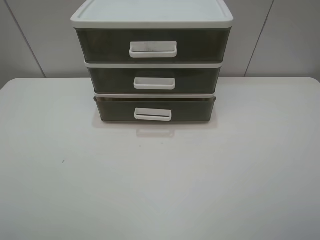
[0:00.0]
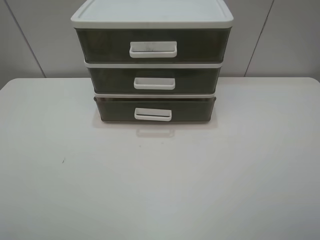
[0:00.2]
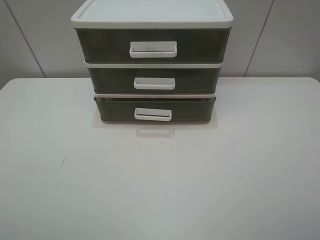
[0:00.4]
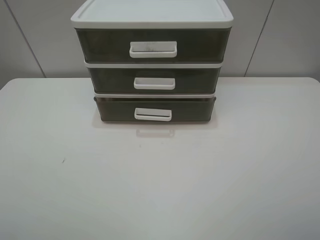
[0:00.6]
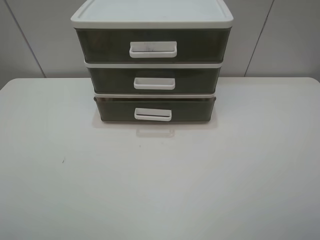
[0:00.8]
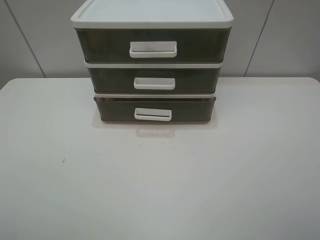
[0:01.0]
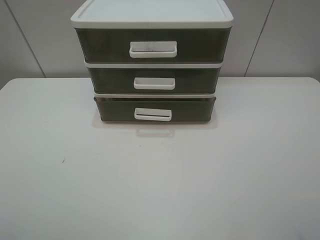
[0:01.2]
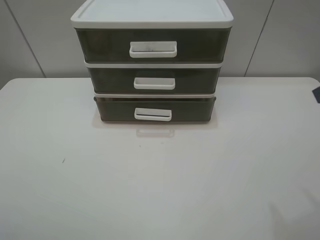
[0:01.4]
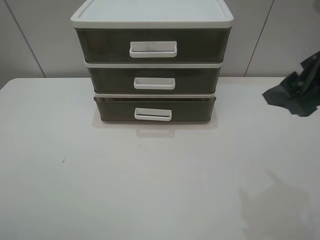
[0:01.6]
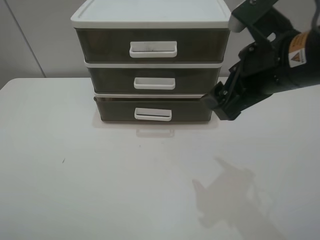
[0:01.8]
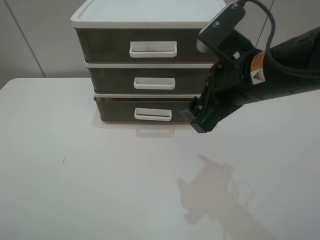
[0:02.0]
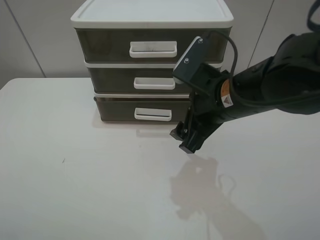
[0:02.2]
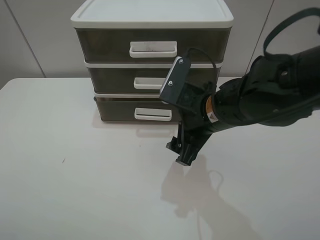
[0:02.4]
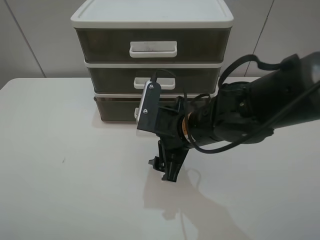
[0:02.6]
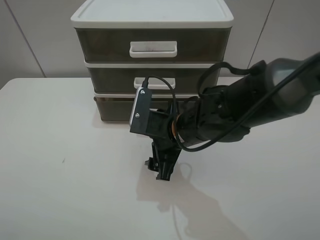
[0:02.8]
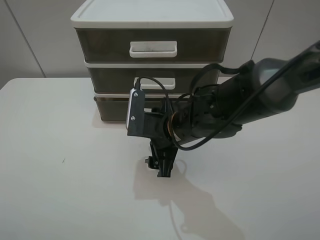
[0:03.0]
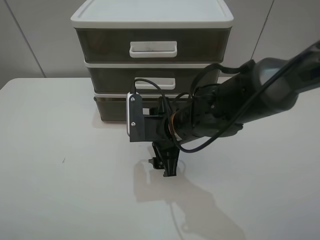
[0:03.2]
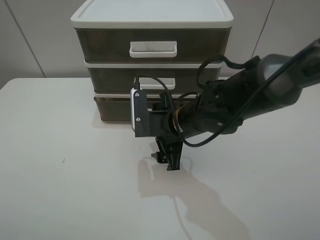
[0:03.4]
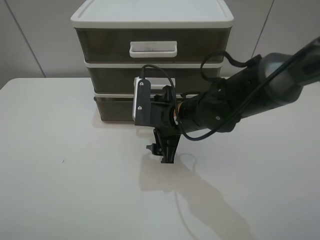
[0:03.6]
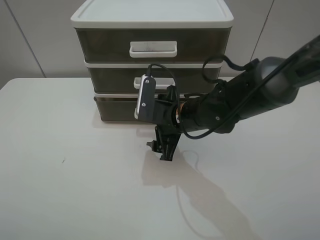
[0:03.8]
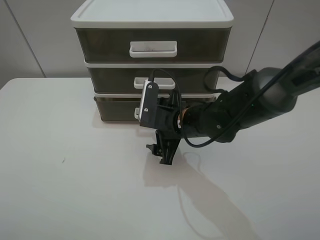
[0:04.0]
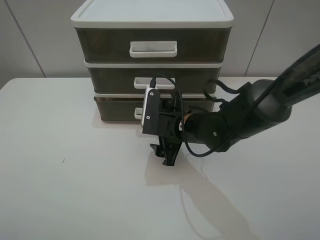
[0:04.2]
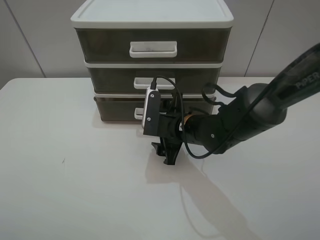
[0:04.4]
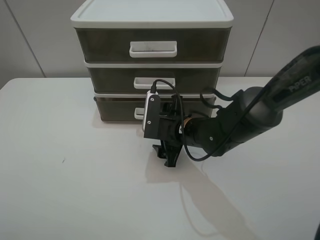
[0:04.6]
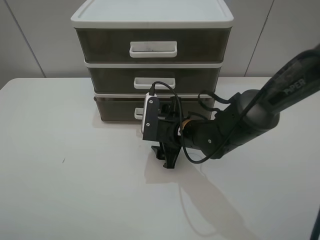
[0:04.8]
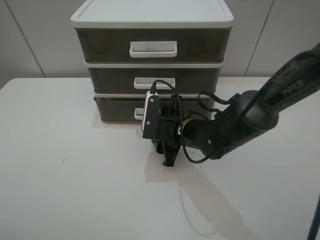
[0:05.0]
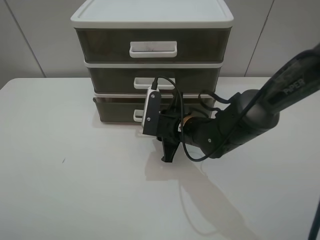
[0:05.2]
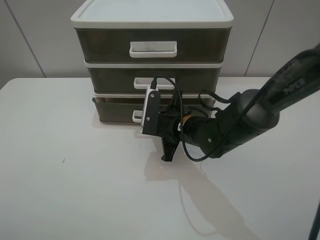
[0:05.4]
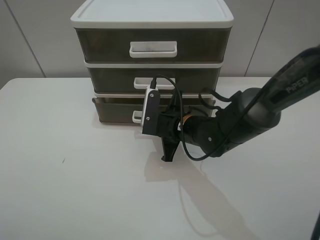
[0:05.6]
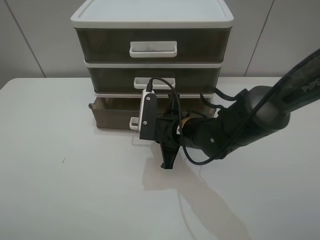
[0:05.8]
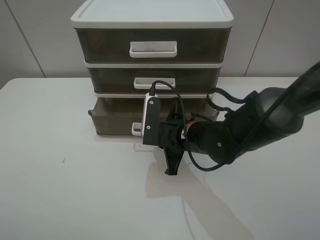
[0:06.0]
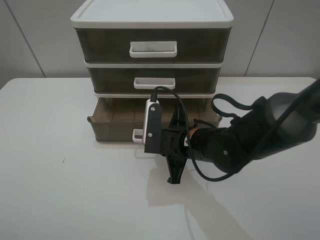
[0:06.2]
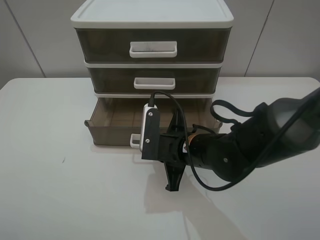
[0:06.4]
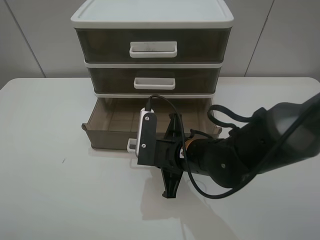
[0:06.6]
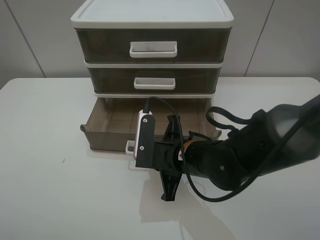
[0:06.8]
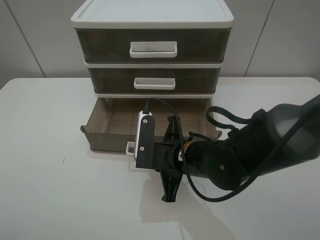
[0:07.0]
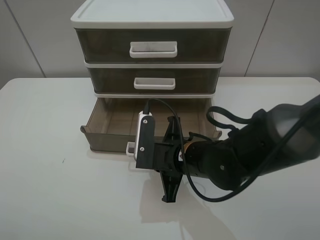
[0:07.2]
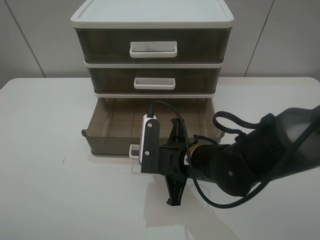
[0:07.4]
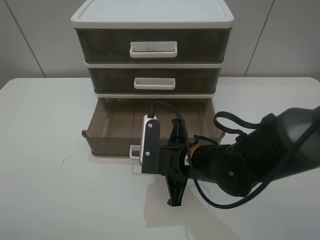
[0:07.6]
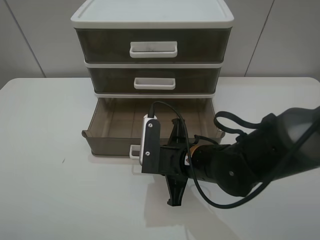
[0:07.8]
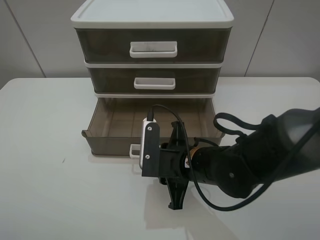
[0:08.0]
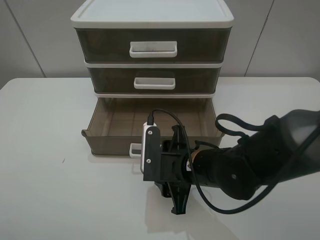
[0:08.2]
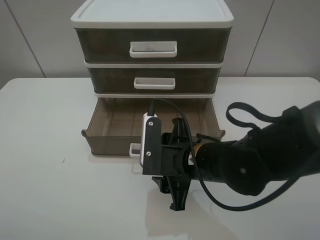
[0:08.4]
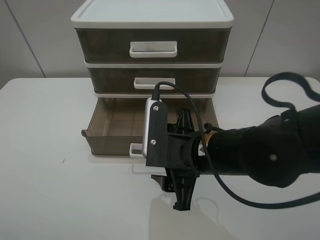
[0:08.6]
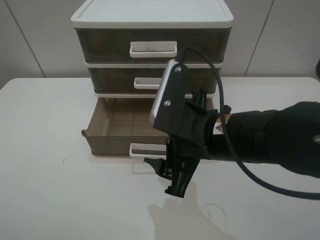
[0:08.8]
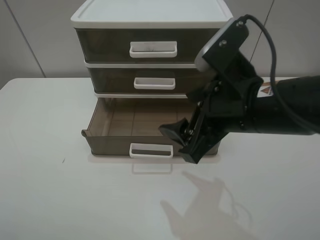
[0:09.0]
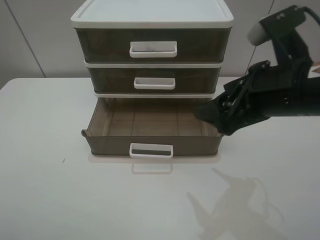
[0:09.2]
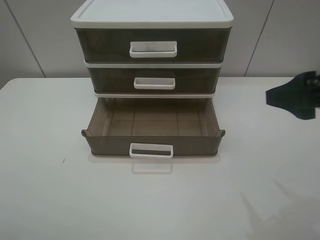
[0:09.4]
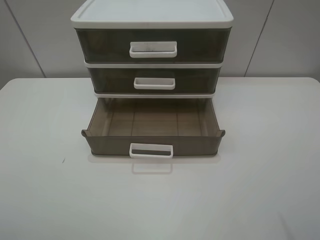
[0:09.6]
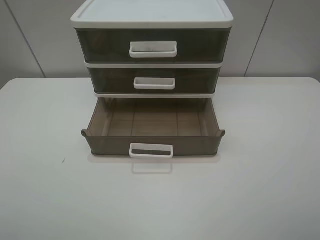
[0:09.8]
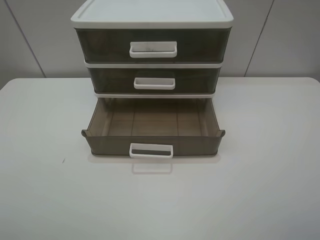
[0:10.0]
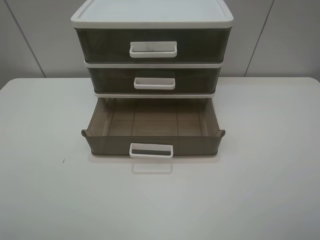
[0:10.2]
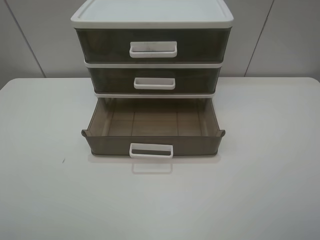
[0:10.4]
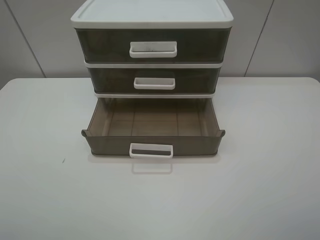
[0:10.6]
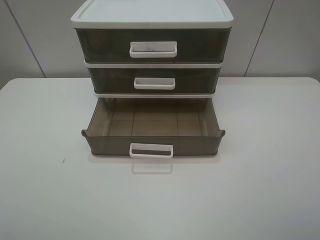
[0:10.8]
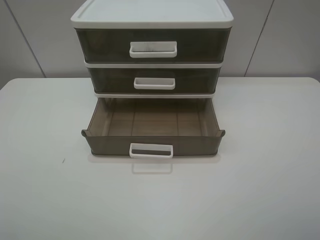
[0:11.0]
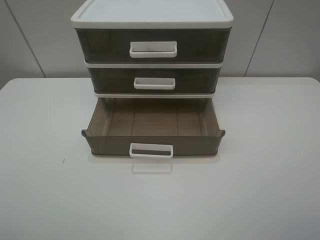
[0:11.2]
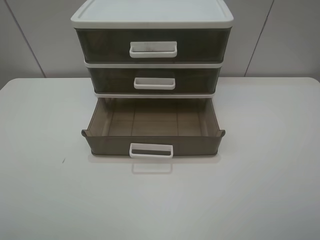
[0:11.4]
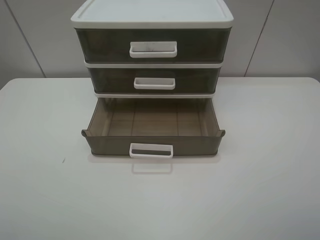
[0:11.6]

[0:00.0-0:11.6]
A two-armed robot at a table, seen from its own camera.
Task of the whole recording: open the bottom drawer.
Step, 0:00.0 to 0:05.4: Grab the bottom drawer with the right gripper.
Step, 0:05.6 to 0:08.4: Pull open the drawer with the right gripper.
0:01.4 to 0:02.8: The right gripper is displaced to the left, downward and forward by about 30 cm.
0:02.8 to 0:04.4: The right gripper changes place by roughly 5 cm.
0:04.4 to 0:05.8: The right gripper closes up.
0:05.8 to 0:07.2: The right gripper heads backward, covering some 5 cm.
0:07.2 to 0:08.8: The right gripper moves upward, approximately 10 cm, and opens.
0:08.8 to 0:10.2: The right gripper travels to the right and backward by about 30 cm.

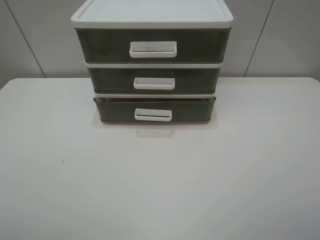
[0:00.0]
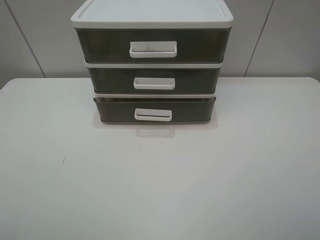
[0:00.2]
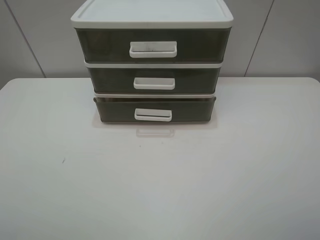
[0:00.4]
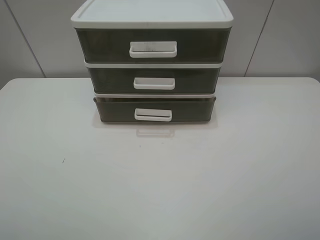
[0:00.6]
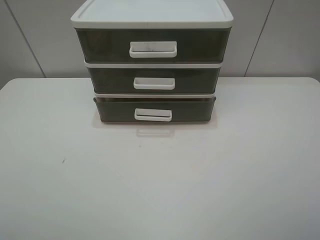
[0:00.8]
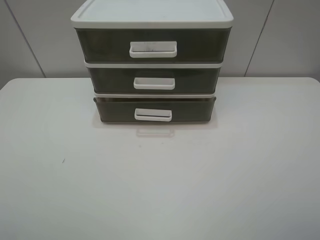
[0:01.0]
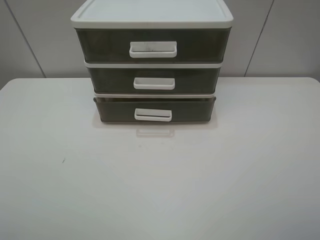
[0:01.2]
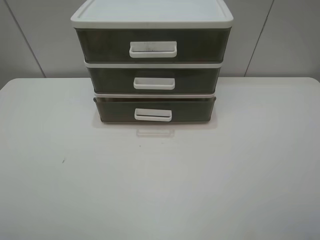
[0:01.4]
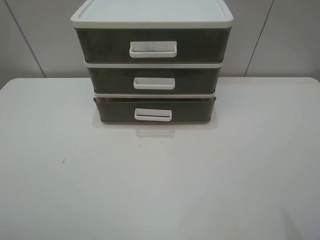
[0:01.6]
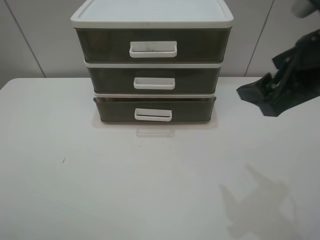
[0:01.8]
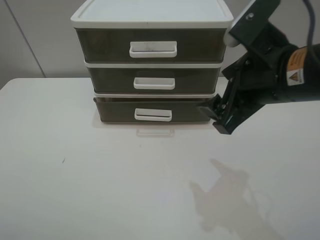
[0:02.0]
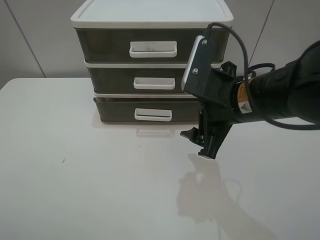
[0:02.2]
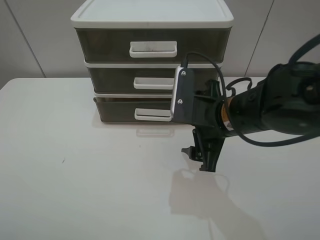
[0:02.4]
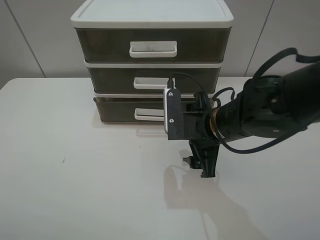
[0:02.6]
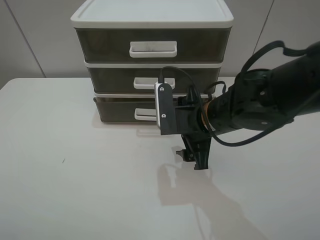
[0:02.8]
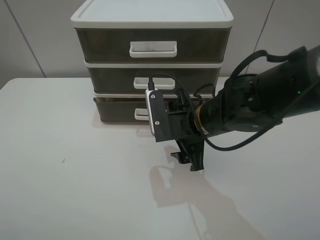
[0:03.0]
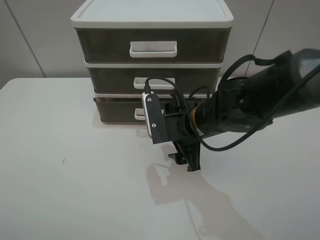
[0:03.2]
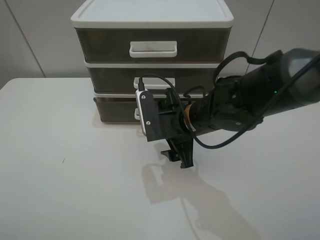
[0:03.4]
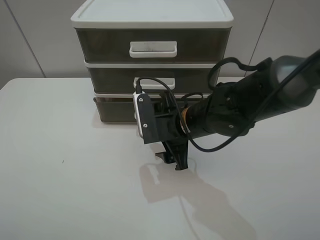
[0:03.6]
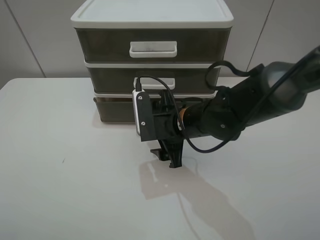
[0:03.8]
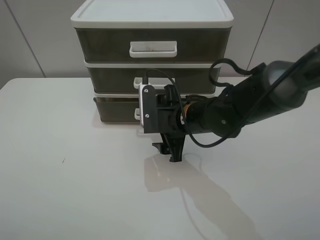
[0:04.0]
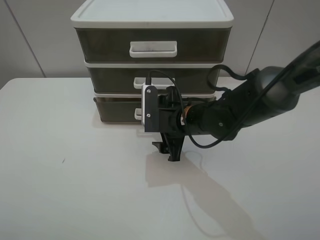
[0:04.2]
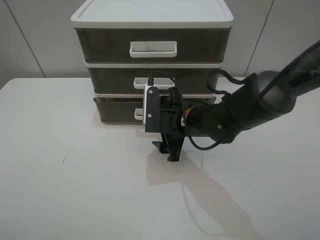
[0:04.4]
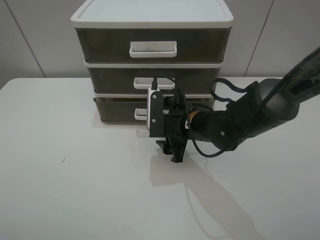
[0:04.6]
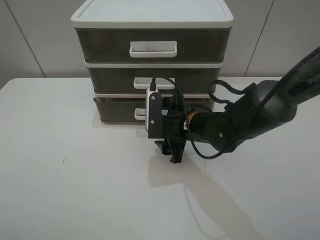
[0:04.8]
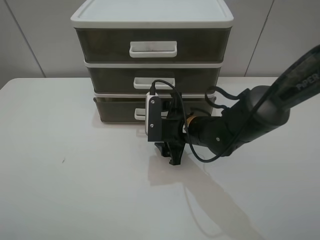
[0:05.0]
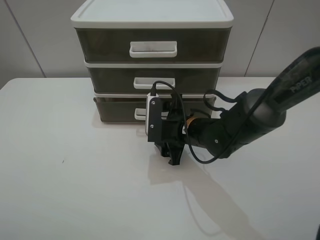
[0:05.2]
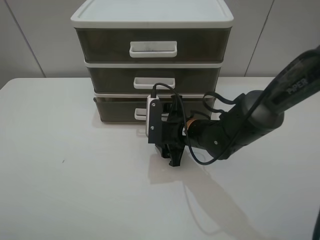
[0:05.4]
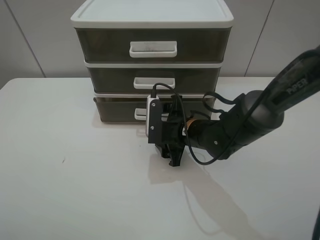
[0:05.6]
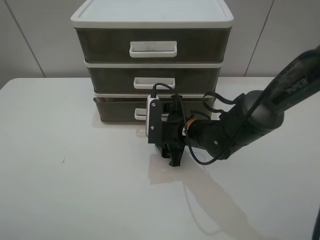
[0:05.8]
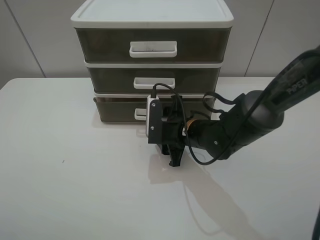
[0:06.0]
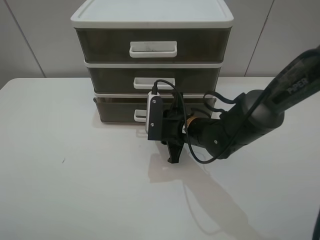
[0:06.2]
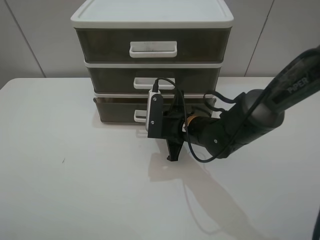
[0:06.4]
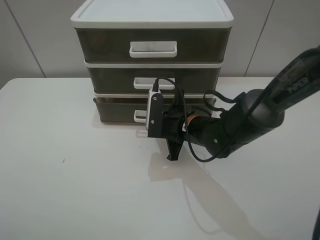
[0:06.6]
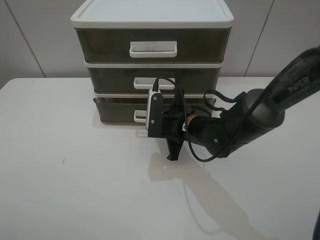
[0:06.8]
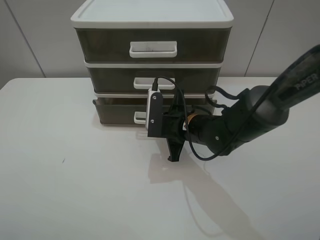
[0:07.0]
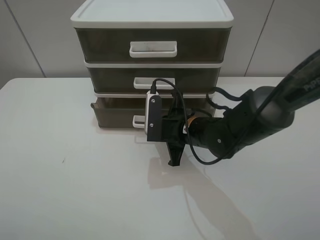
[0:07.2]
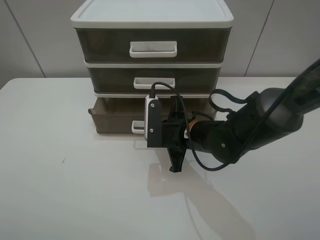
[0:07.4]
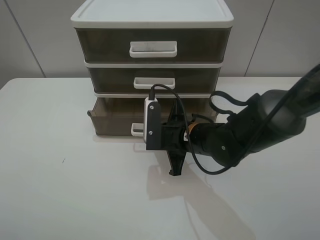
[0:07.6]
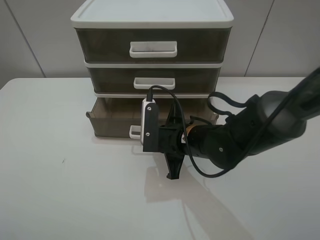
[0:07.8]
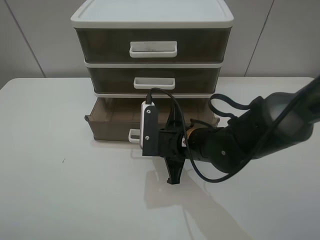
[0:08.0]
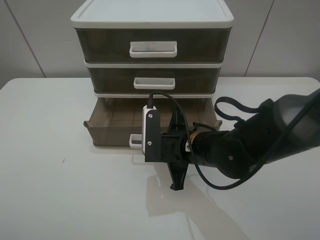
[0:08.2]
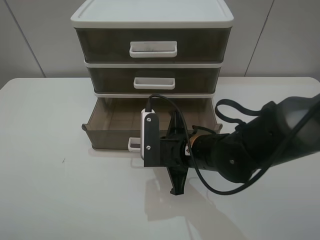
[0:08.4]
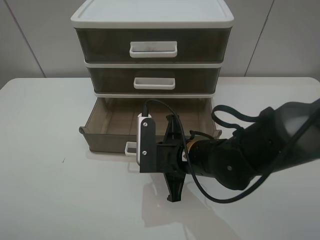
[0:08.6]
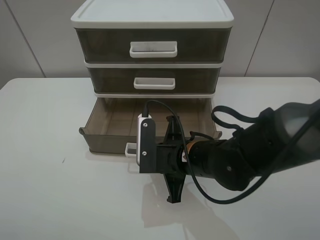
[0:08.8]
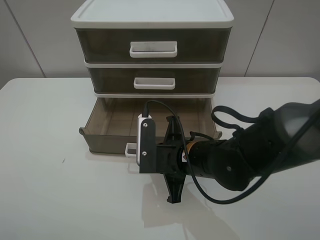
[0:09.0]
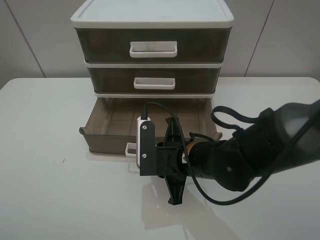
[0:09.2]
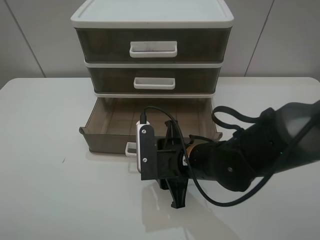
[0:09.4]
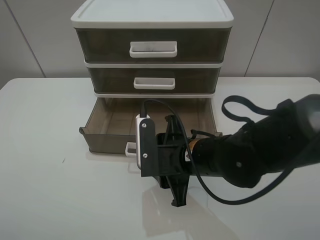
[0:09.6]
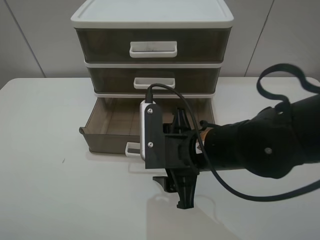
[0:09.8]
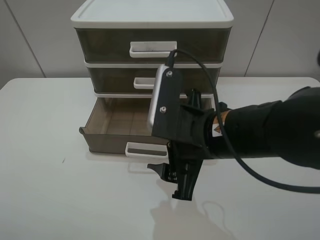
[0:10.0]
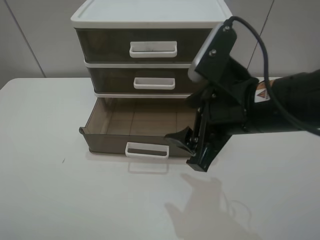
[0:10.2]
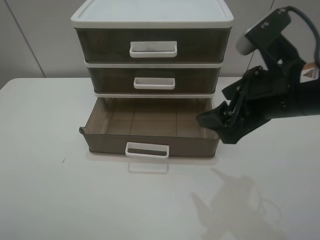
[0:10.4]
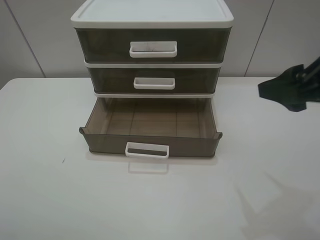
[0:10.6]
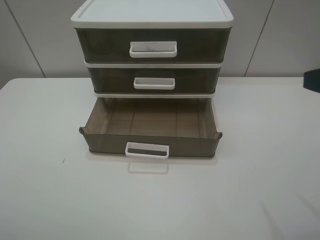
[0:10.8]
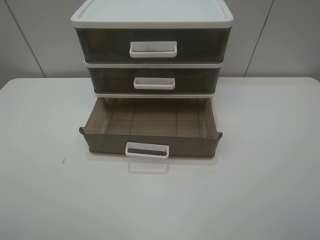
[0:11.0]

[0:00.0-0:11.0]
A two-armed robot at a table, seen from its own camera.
Task of the whole recording: open the bottom drawer.
Step, 0:00.0 to 0:06.4: Grab the bottom drawer with the right gripper.
Step, 0:06.6 to 0:09.6: Pull open the drawer with the right gripper.
0:01.6 to 0:03.2: The right gripper heads to the left, downward and forward, covering roughly 30 cm.
0:03.2 to 0:04.8: The grippers stay close to where they were, moving slightly.
0:04.8 to 0:06.2: The right gripper closes its fingers.
0:06.2 to 0:07.8: The right gripper closes up.
0:07.8 to 0:09.4: The right gripper opens up.
0:09.4 to 0:11.0: The right gripper travels upward, to the right and backward by roughly 35 cm.
